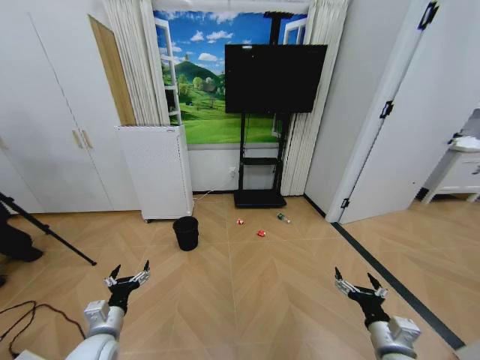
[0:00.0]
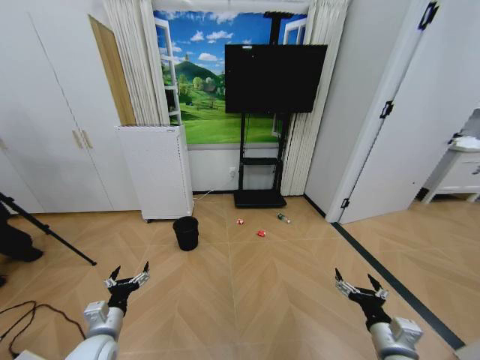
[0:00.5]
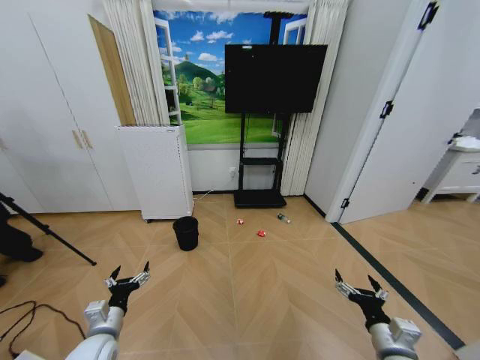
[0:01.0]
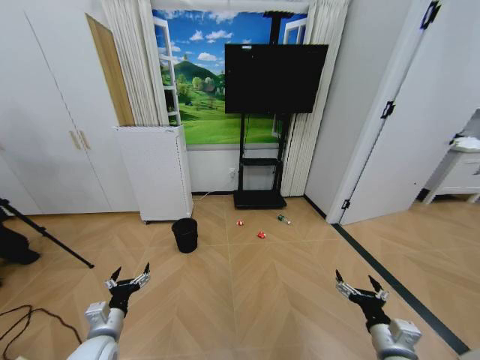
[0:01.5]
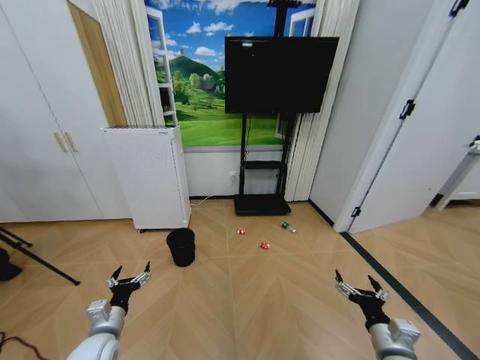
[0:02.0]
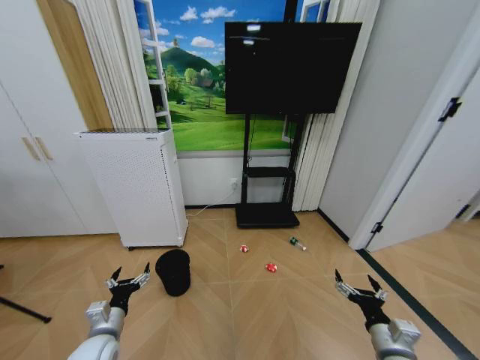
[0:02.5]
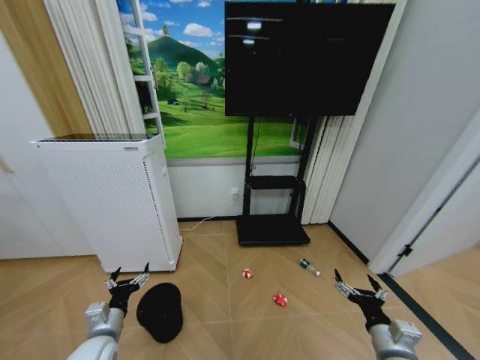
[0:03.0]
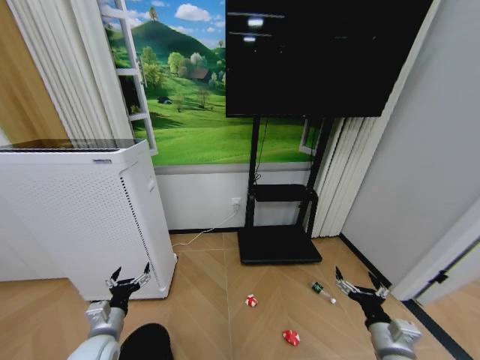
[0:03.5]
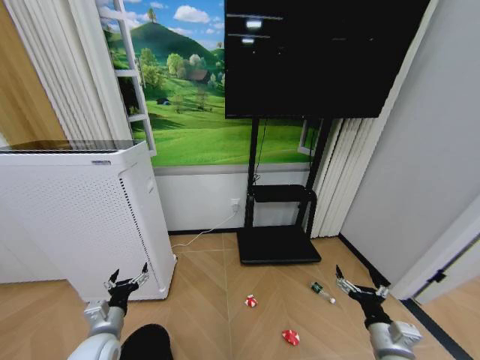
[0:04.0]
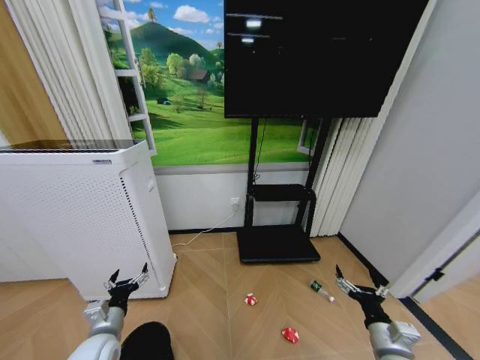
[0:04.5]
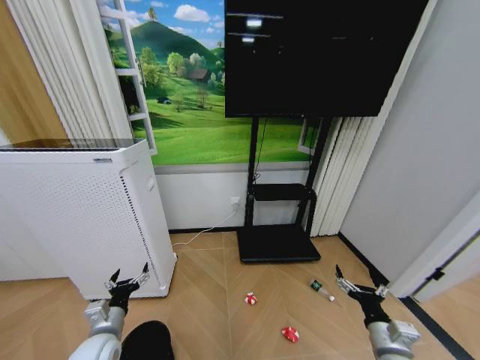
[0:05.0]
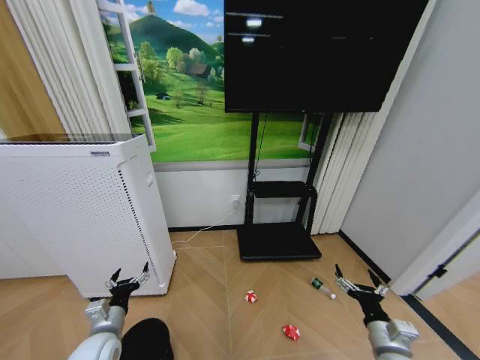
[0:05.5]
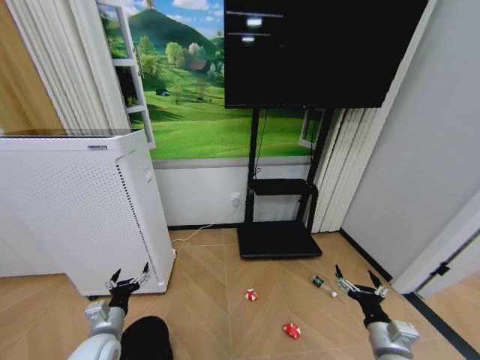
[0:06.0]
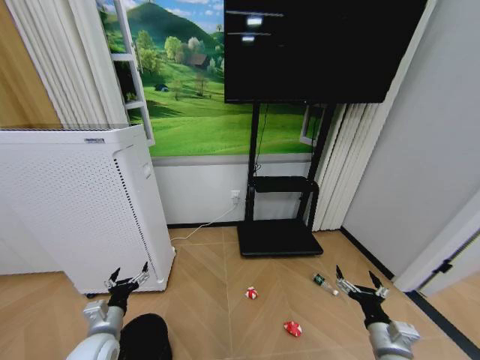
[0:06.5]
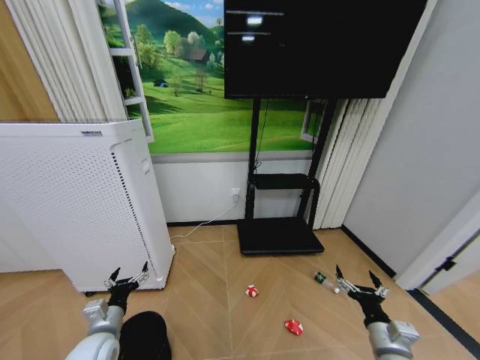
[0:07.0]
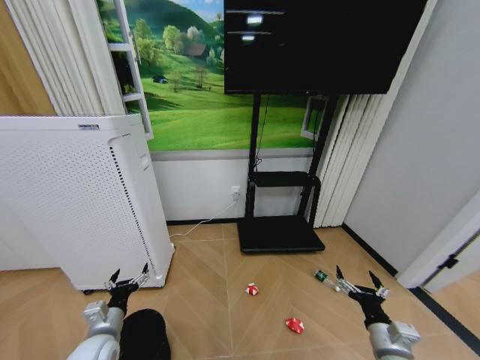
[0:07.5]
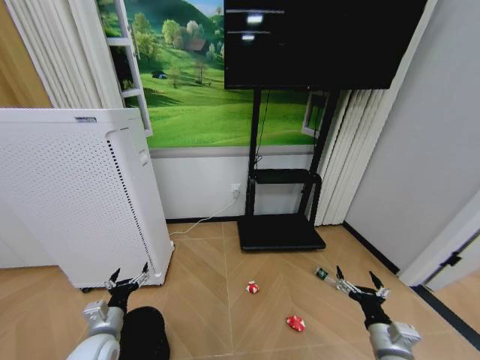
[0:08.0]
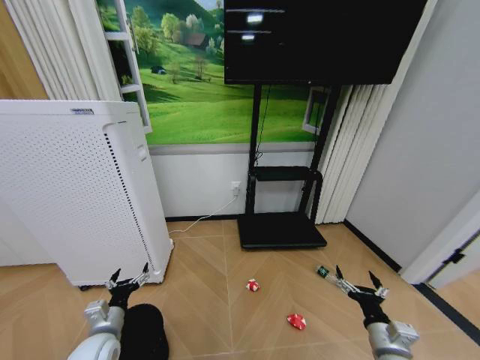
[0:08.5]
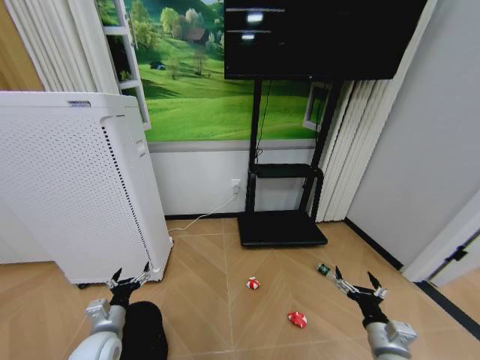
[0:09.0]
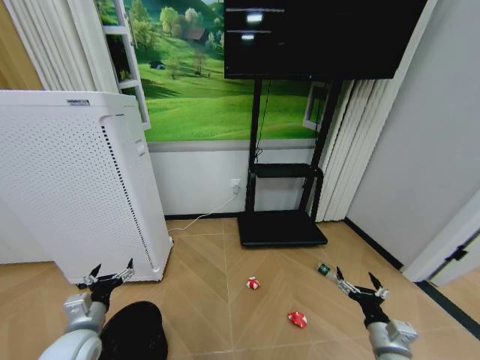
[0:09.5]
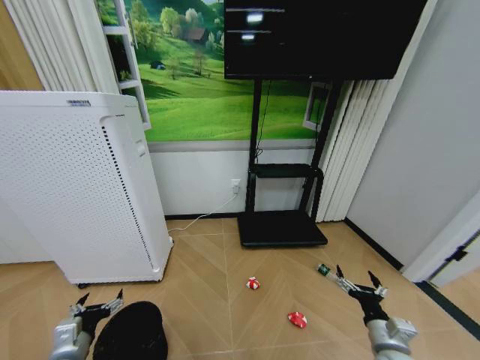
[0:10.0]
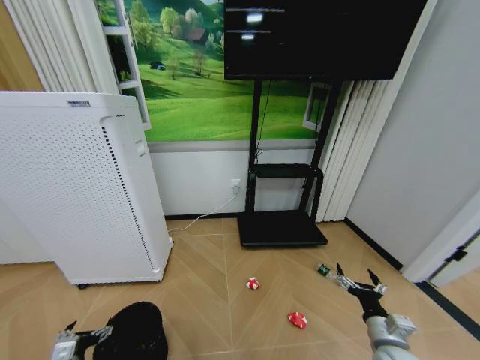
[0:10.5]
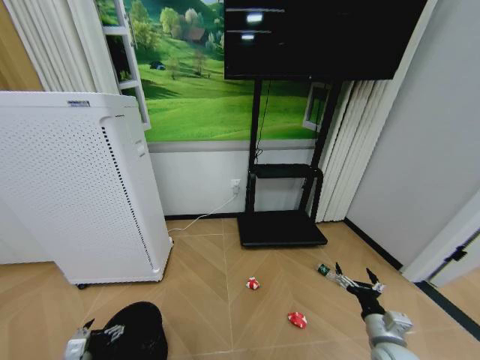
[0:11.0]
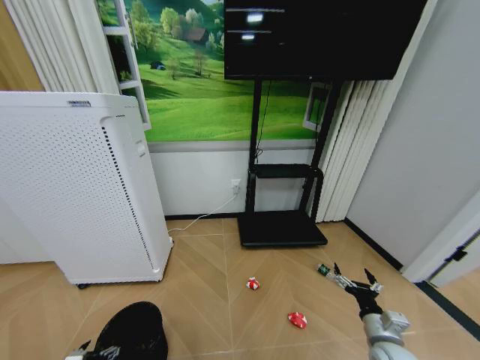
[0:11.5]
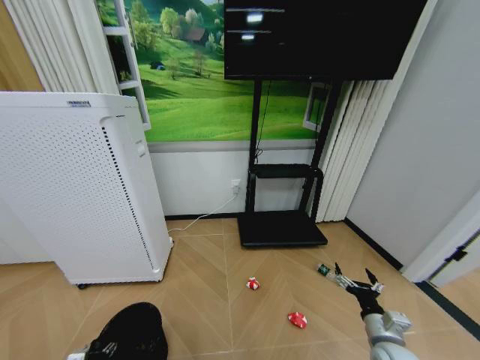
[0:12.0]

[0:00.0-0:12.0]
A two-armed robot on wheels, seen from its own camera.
Task of the whole recording: Pick up the trash bin and place the garbage on the floor into it.
4.0 to 8.0 s: Neither gripper changes place.
8.0 to 10.0 s: The left gripper shifts about 5 cm upward.
10.0 to 12.0 s: The left gripper travels downward by about 15 cm.

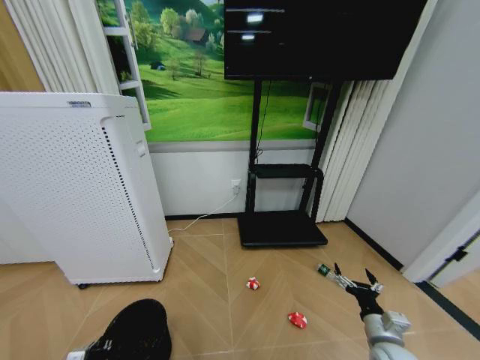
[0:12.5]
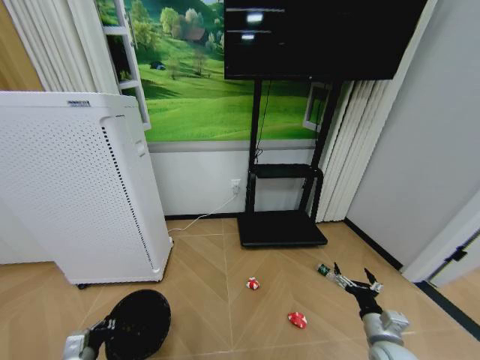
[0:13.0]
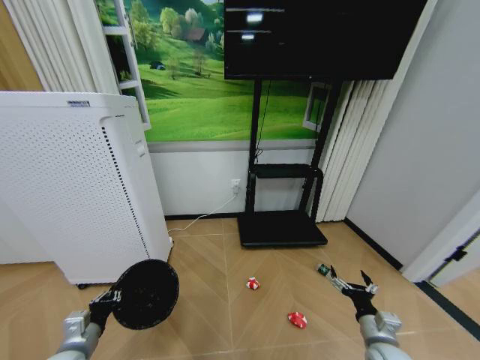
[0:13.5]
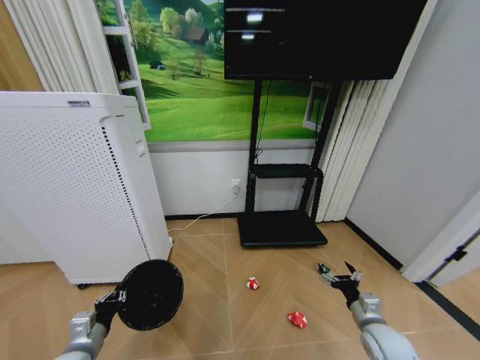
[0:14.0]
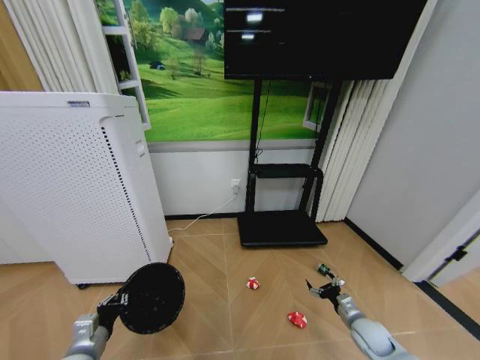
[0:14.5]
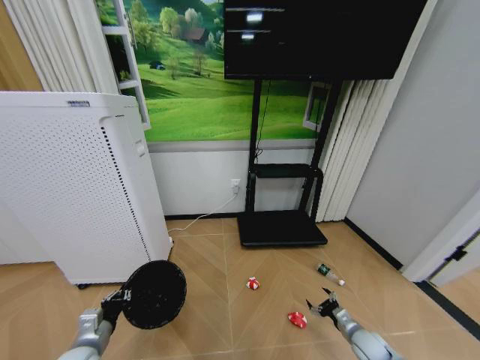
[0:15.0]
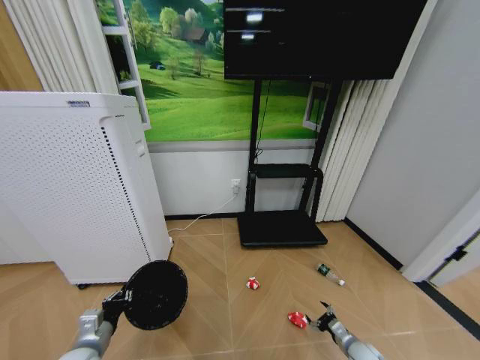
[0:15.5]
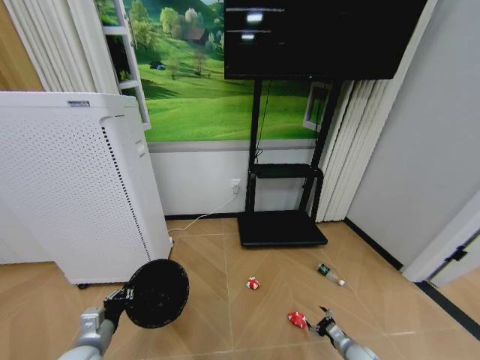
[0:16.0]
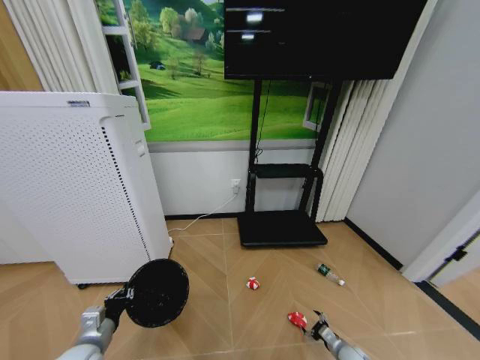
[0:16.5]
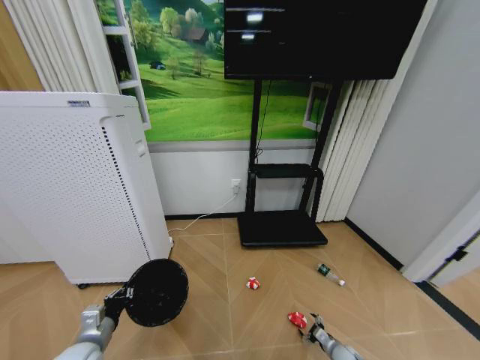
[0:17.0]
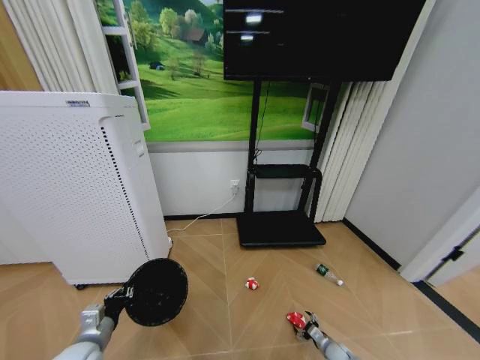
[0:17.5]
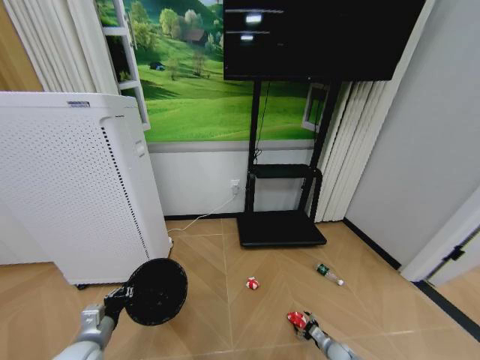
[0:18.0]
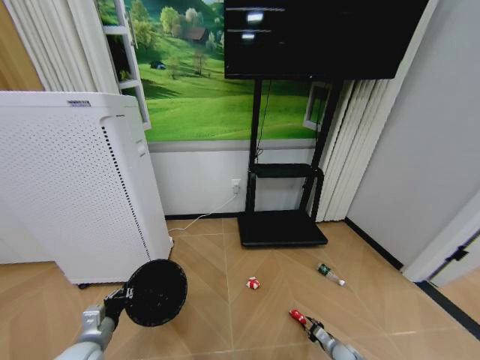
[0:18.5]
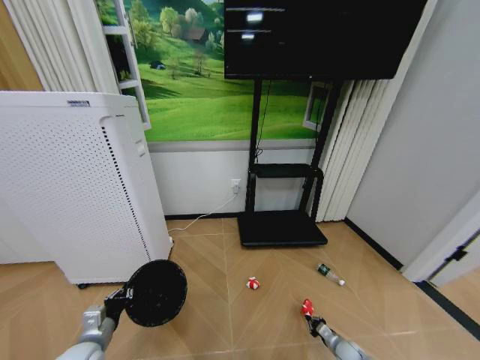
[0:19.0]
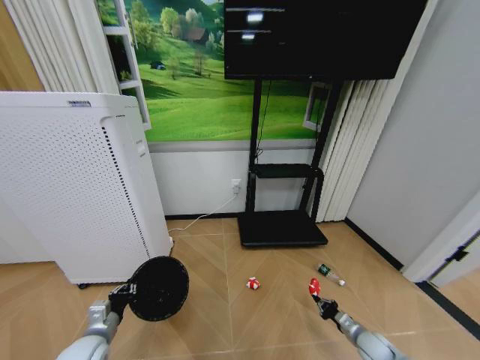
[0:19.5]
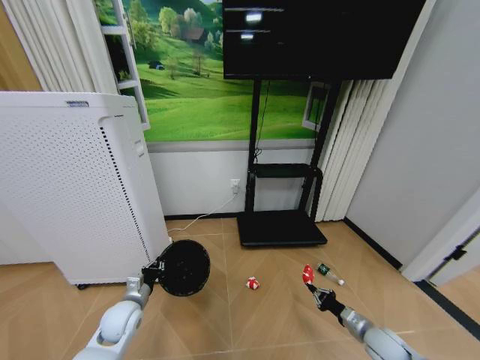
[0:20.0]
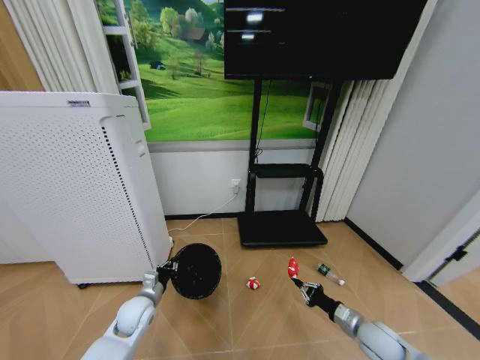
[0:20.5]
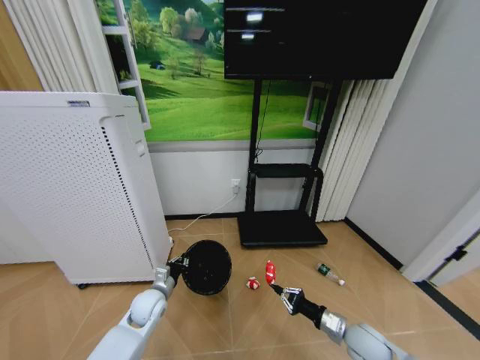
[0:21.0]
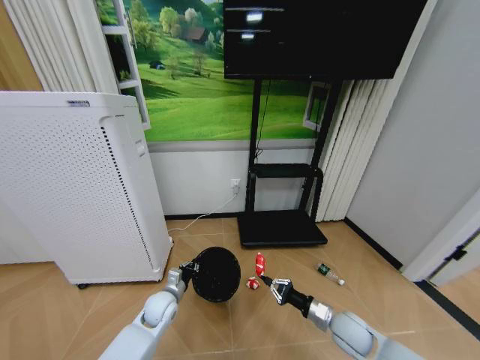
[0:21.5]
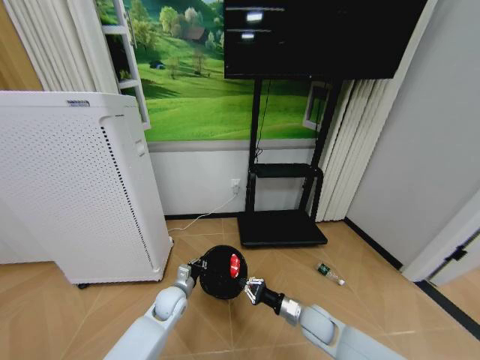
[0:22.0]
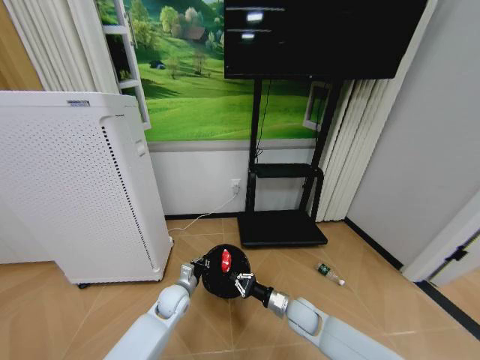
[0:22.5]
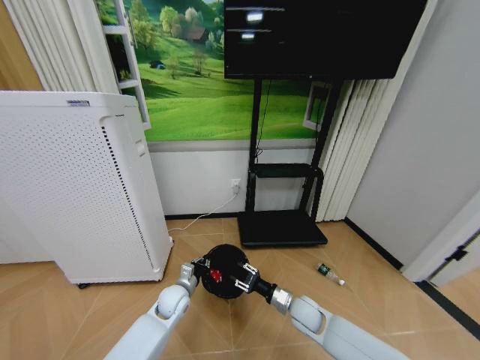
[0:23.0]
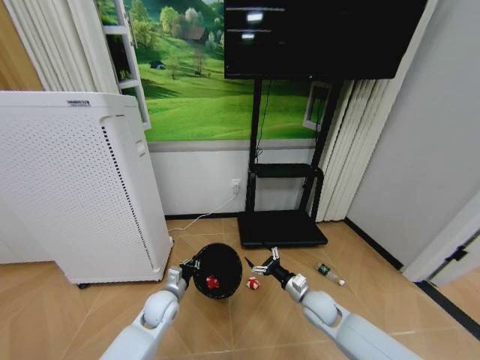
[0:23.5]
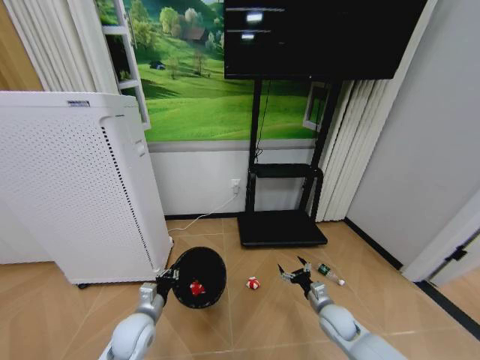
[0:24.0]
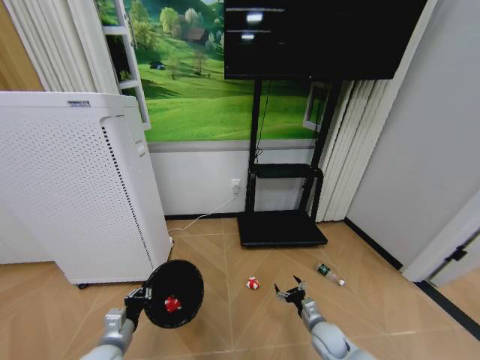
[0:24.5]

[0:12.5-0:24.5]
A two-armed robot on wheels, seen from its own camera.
Task of the whole recording: Pick up the trash bin and place the garbage on the floor into it.
12.5 to 14.5 s: The right gripper goes roughly 10 cm forward and downward. The left gripper is displaced upward and to the right by roughly 10 cm.
14.5 to 16.5 s: The right gripper travels downward by about 15 cm.
16.5 to 18.5 s: The right gripper closes.
18.5 to 20.5 s: The right gripper shifts roughly 25 cm upward, and closes its fingers. Meanwhile the left gripper moves forward and to the right, approximately 15 cm.
20.5 to 22.5 s: The left gripper shifts some 10 cm to the right and forward. Meanwhile the right gripper goes approximately 20 cm to the left.
22.5 to 24.5 s: The left gripper travels backward and to the left by roughly 20 cm. Meanwhile the right gripper shifts some 10 cm to the right and downward, and opens its fingers.

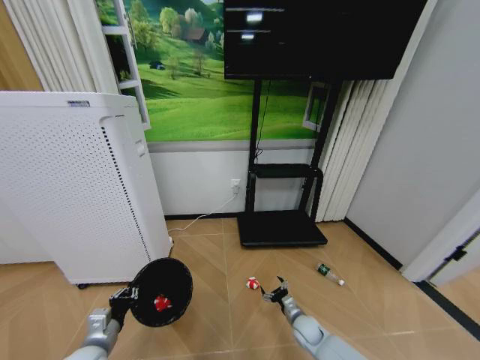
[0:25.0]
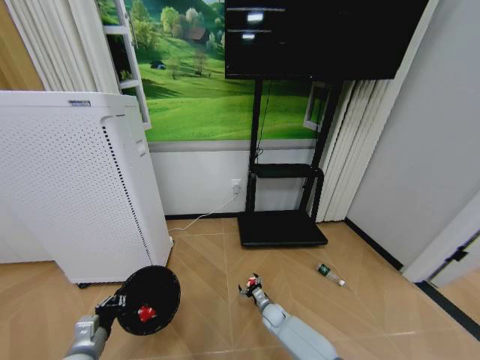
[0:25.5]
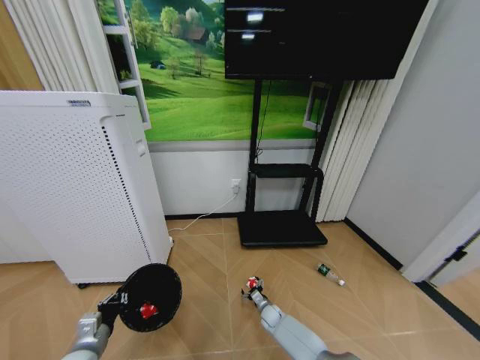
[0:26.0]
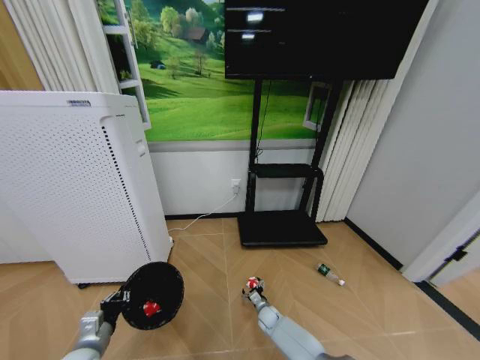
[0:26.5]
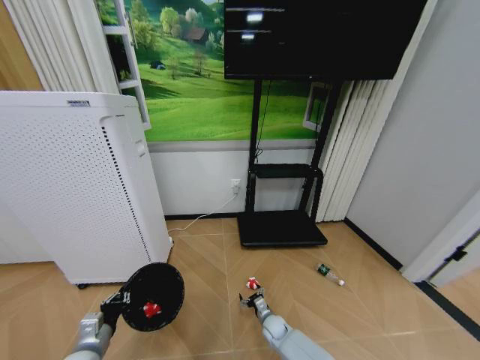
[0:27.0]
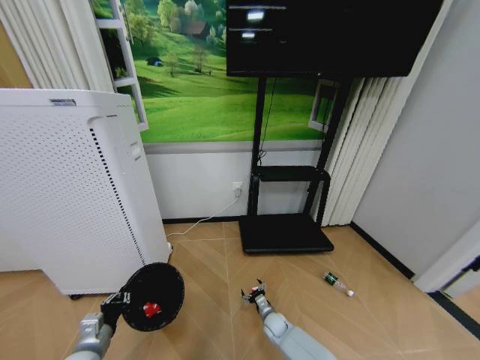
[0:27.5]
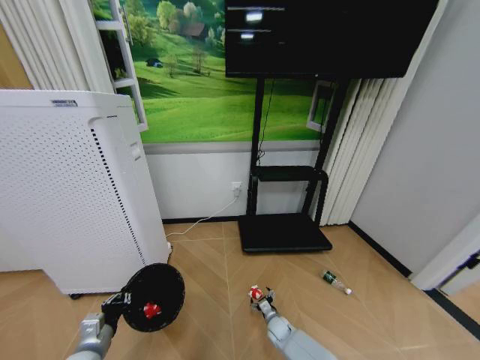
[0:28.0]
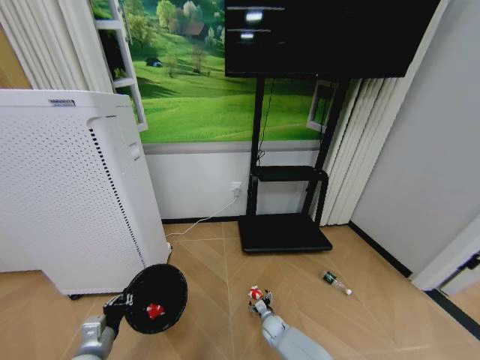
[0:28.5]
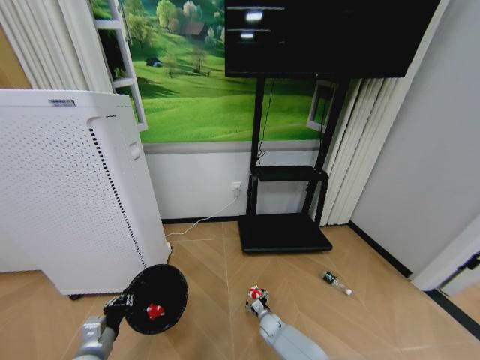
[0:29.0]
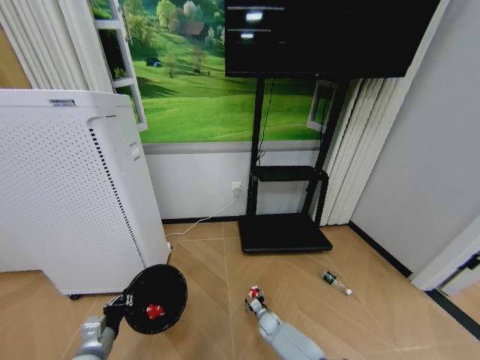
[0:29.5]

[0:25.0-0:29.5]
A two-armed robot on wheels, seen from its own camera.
Task of the whole recording: Pick up the trash bin and place the garbage on the floor into it.
25.0 to 27.0 s: The right gripper travels to the left and downward by about 10 cm.
27.0 to 29.5 s: There are only small adjustments of the grippers.
